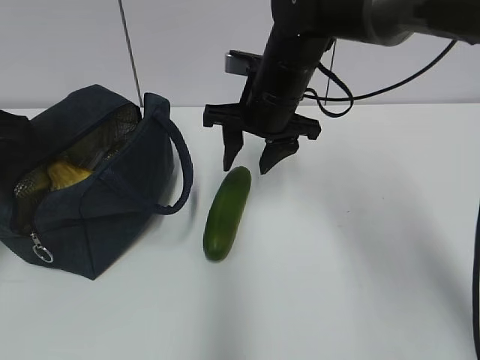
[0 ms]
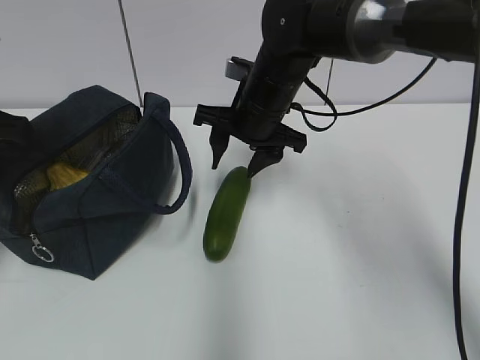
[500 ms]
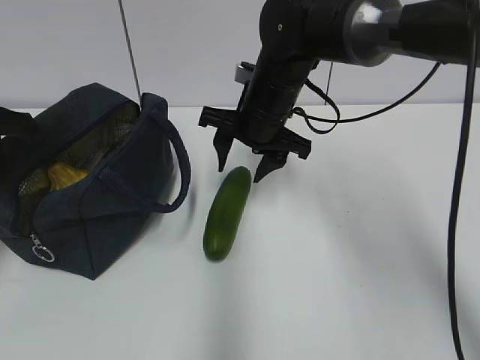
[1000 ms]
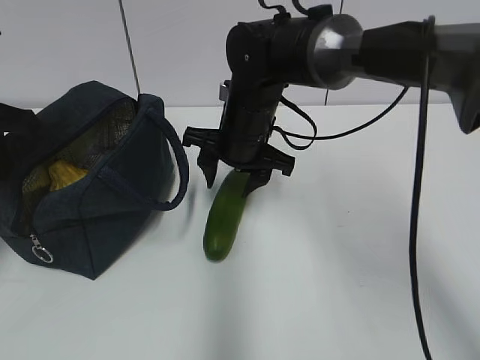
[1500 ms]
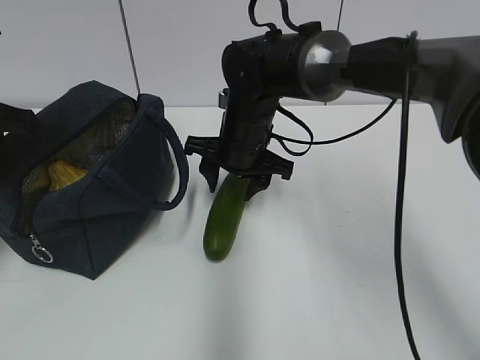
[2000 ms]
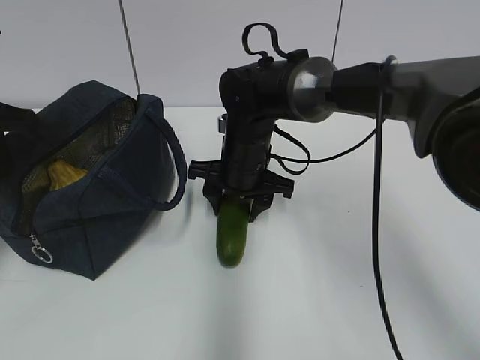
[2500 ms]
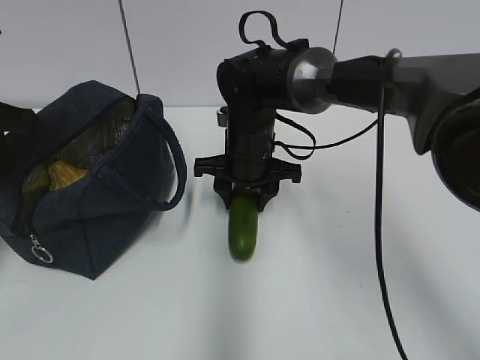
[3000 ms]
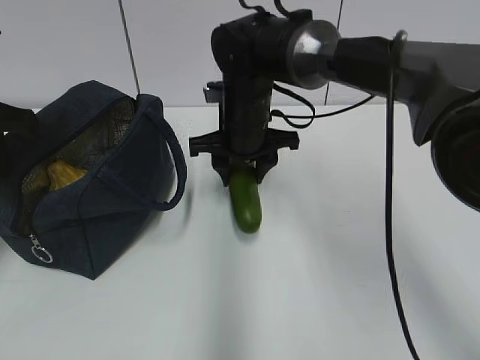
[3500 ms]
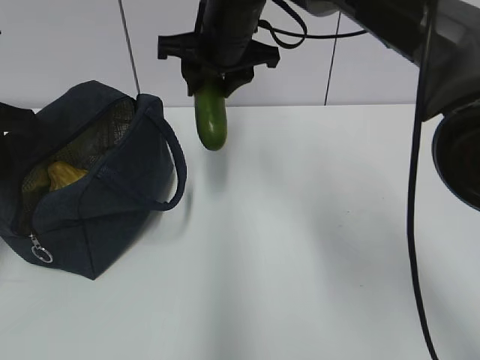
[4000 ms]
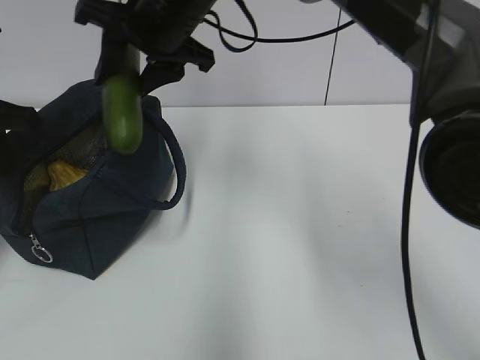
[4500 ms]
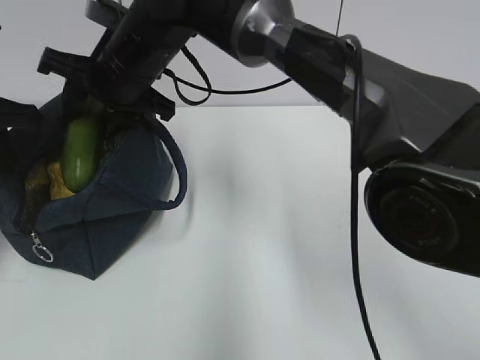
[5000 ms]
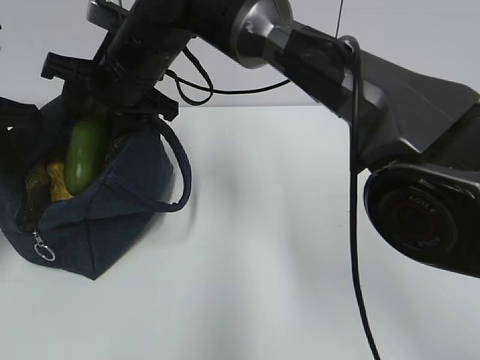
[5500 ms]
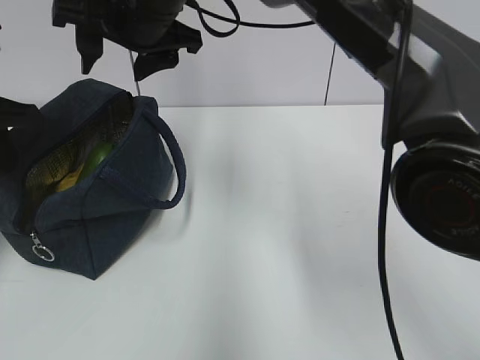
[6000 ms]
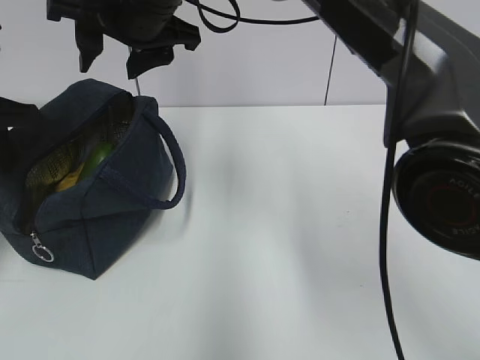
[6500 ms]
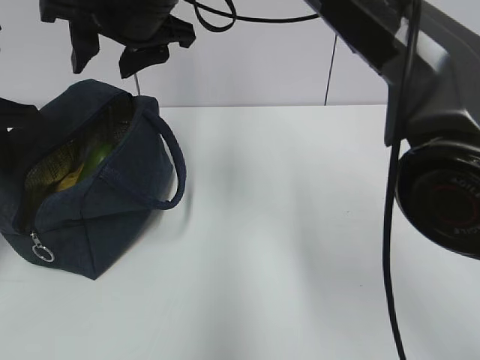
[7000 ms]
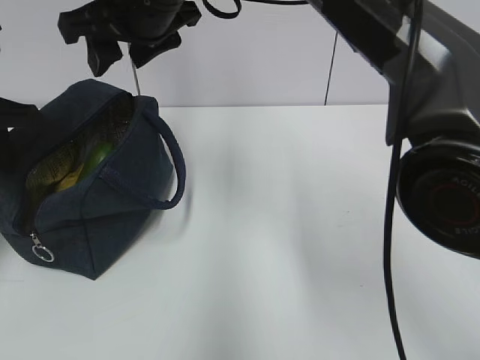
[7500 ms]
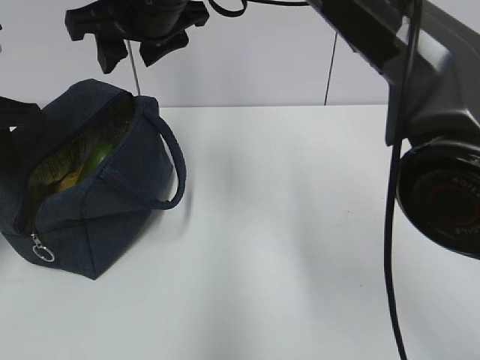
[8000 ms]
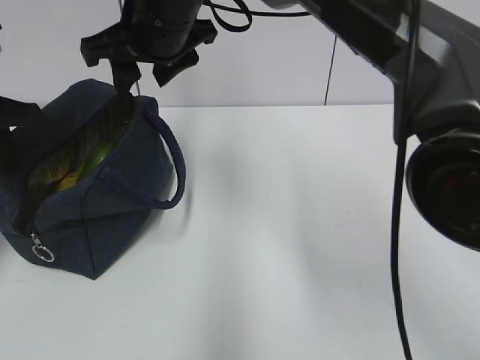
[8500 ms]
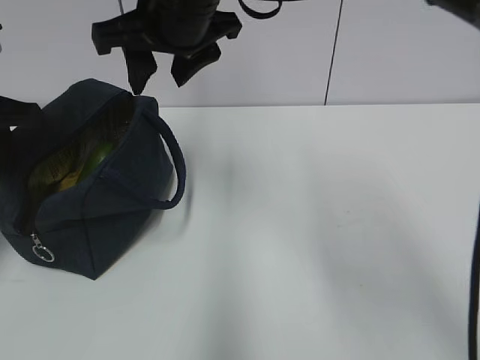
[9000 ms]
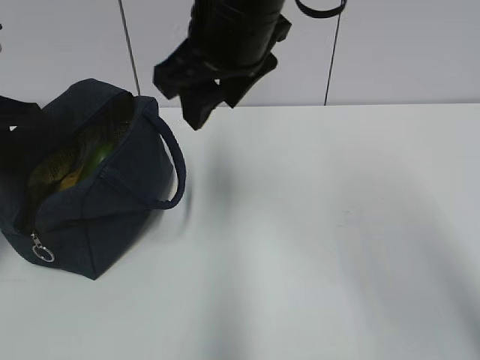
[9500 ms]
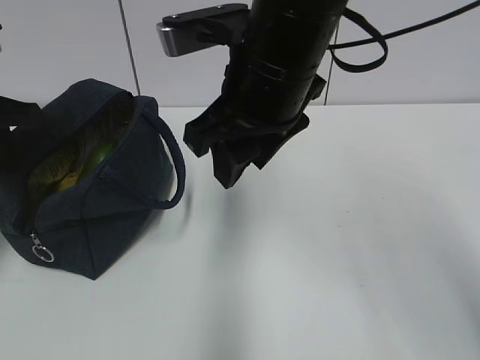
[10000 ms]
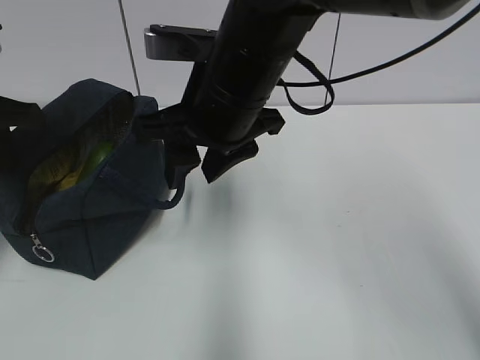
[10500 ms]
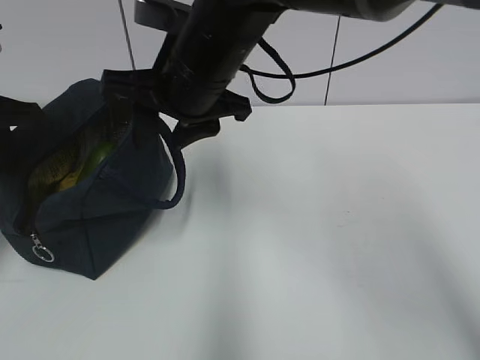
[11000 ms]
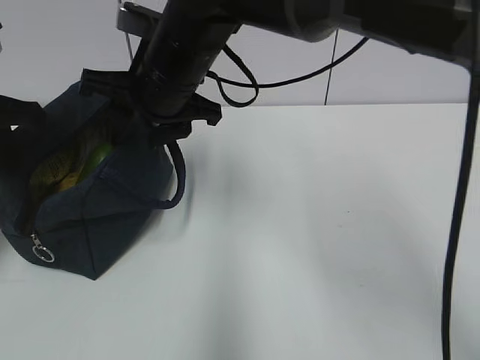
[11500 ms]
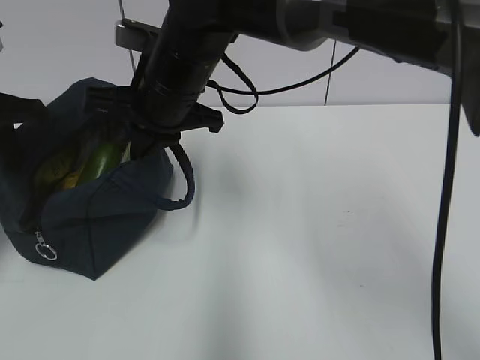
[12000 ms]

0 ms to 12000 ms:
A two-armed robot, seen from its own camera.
Step, 0 ms to 2500 ms: Grab the cucumber with your right hand.
0 ms to 2000 ms: The right gripper heads downward, covering approximately 5 cm.
2000 ms to 4000 ms: The right gripper is displaced upward by approximately 10 cm.
4000 ms to 6000 ms: The right gripper travels to the left by some 5 cm.
8000 ms to 10000 ms: The right gripper is displaced backward and to the right by approximately 15 cm.
10000 ms to 12000 ms: The right gripper is displaced forward, to the left and downward by some 15 cm, and closes.

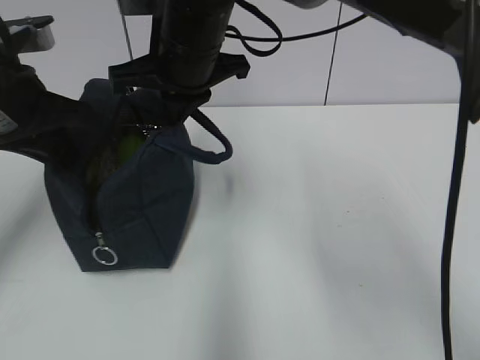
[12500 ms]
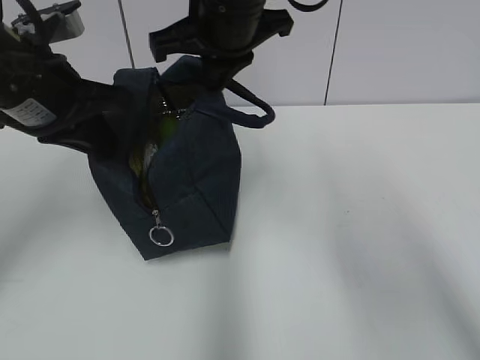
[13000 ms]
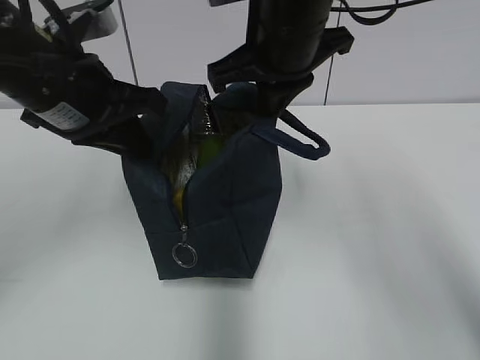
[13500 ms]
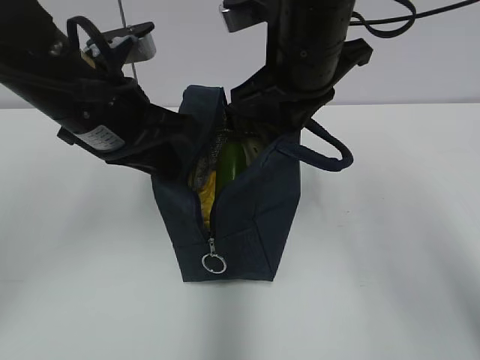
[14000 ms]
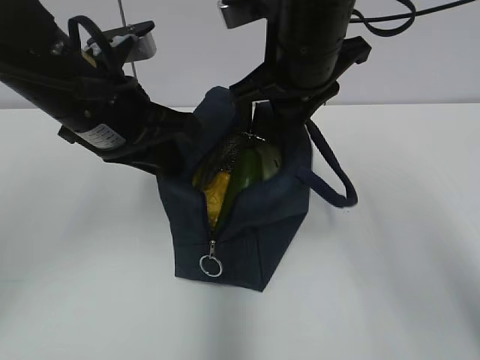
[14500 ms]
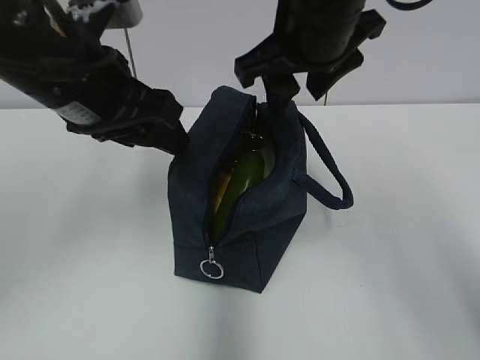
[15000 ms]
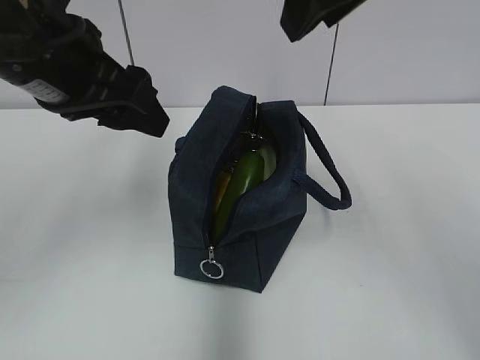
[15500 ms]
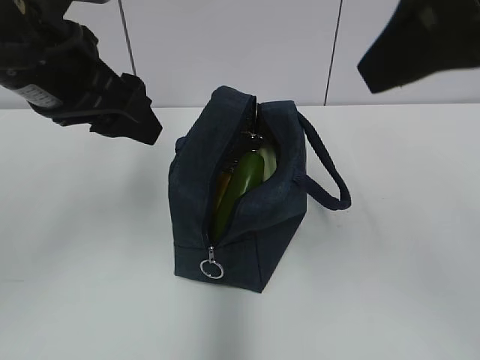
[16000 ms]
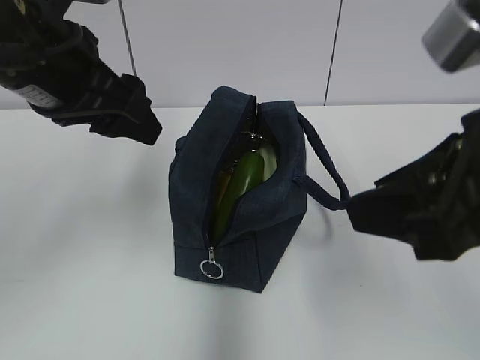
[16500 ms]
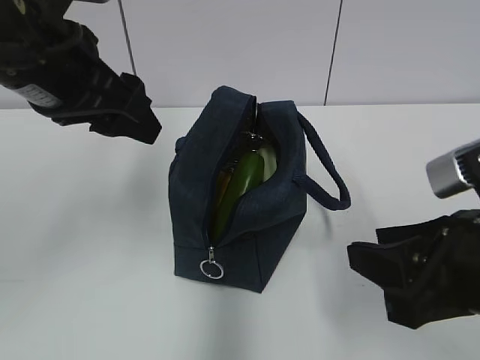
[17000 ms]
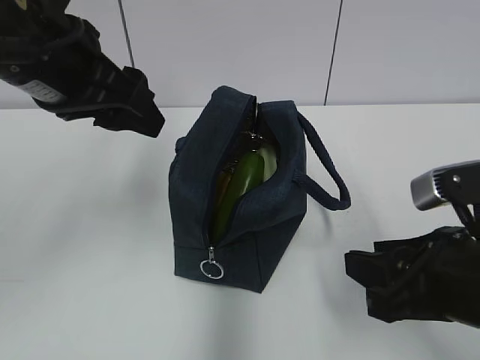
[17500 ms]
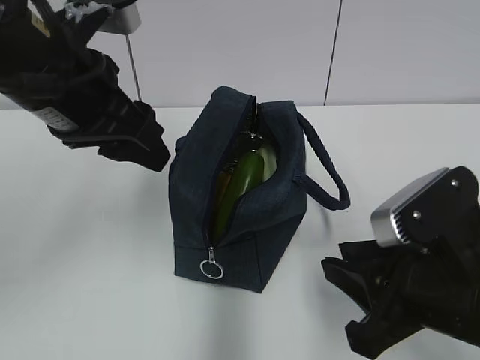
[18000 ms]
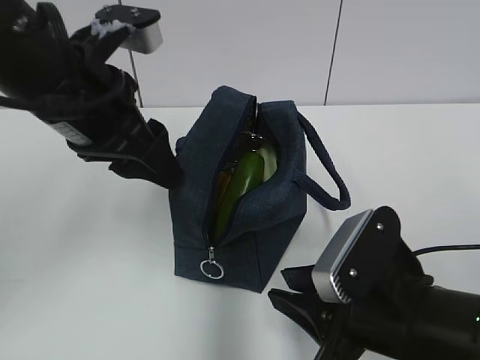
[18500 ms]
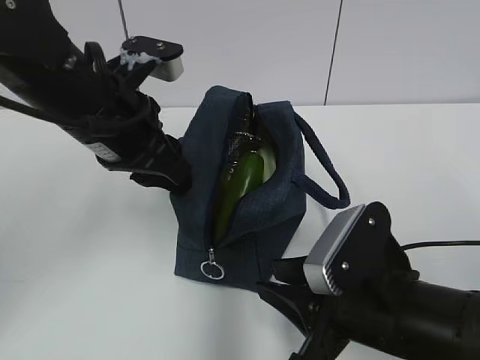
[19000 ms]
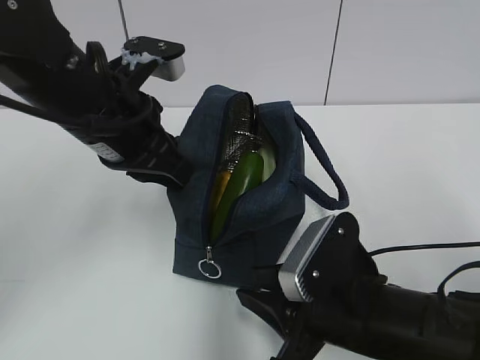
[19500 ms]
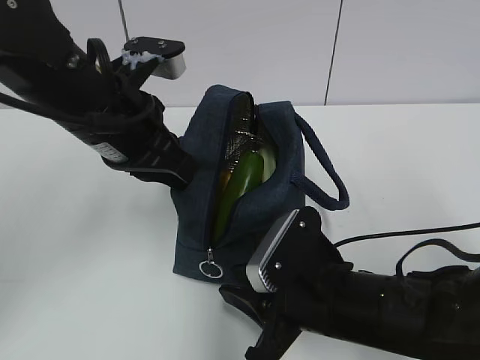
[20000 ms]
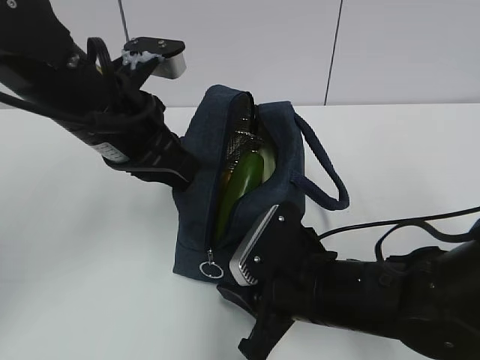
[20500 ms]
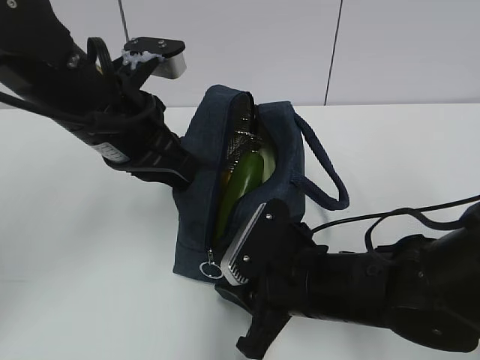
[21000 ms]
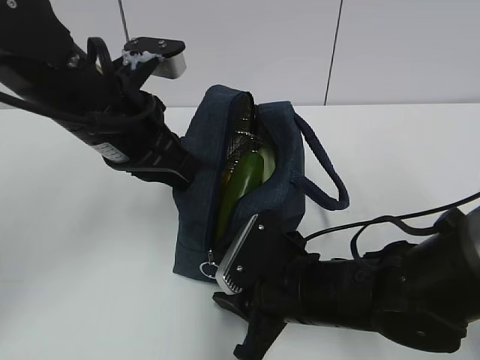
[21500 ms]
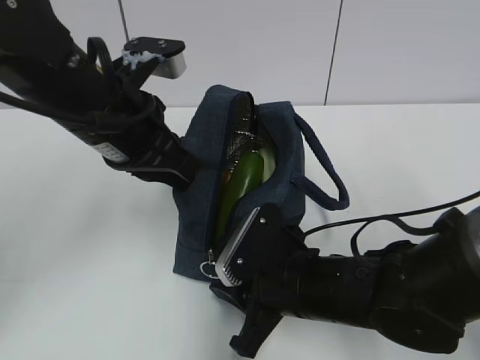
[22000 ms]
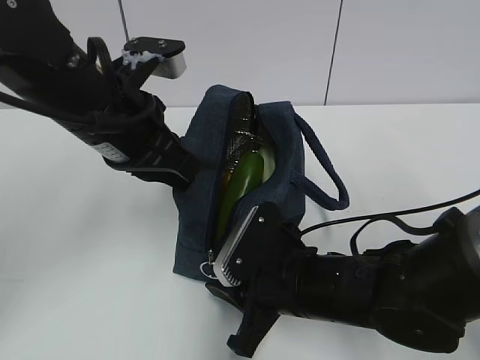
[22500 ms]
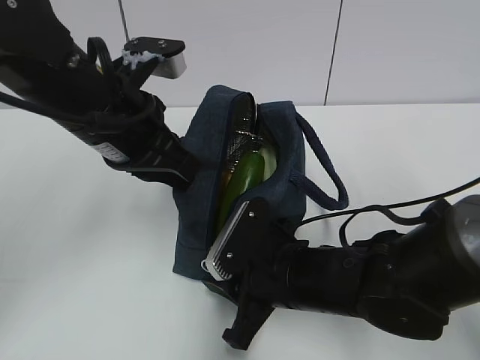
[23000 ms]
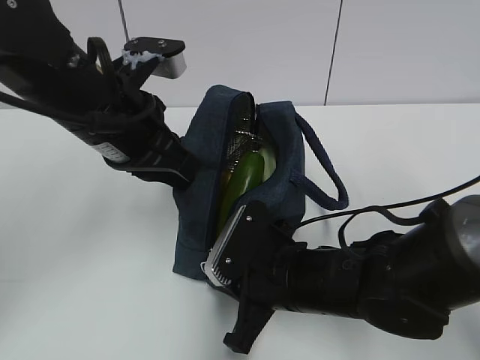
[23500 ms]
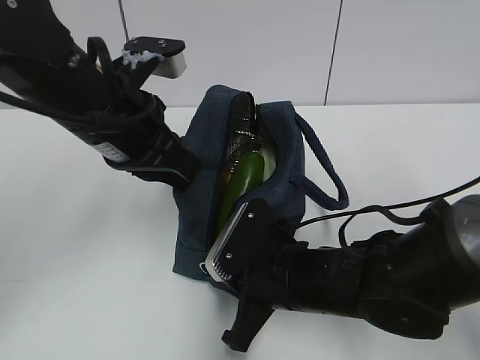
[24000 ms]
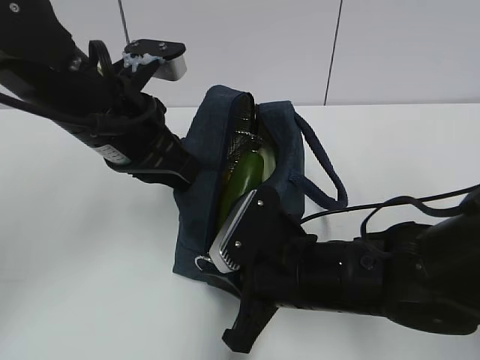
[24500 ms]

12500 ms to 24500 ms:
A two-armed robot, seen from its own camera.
Step, 12500 ms to 14500 ms: Move the lunch bag to the right.
12500 ms to 14500 ms: Both grippers move to the right, approximately 10 cm.
14500 ms to 16500 ms: The left gripper goes about 5 cm upward, and opens its fingers, while the right gripper is displaced backward and to the right by roughly 20 cm.
16500 ms to 18500 ms: The right gripper goes roughly 15 cm downward.
18500 ms to 20500 ms: The right gripper goes some 5 cm forward; the left gripper closes up.
20500 ms to 22500 ms: There are only small adjustments of the grippers.
22500 ms to 24500 ms: The right gripper closes its fingers.

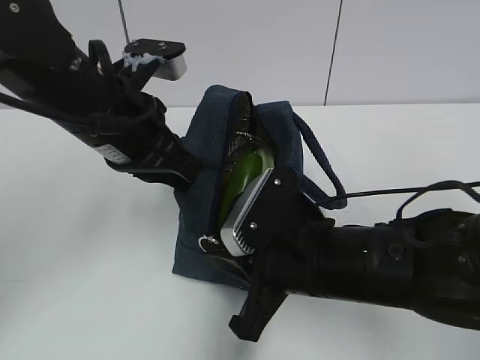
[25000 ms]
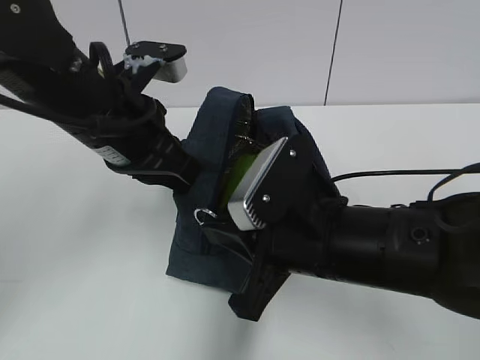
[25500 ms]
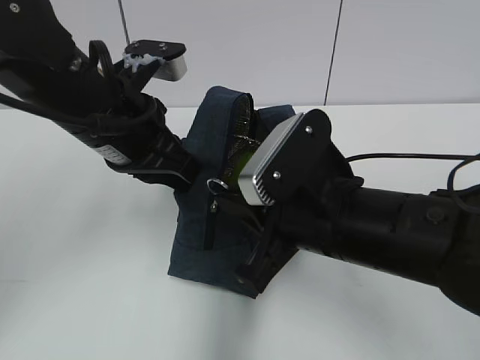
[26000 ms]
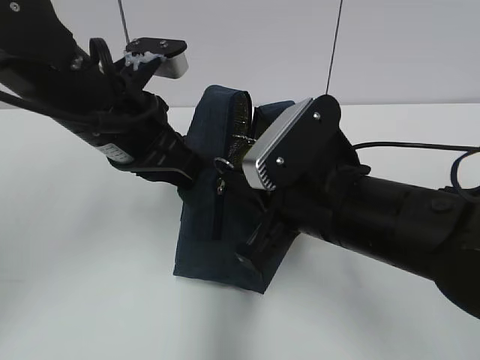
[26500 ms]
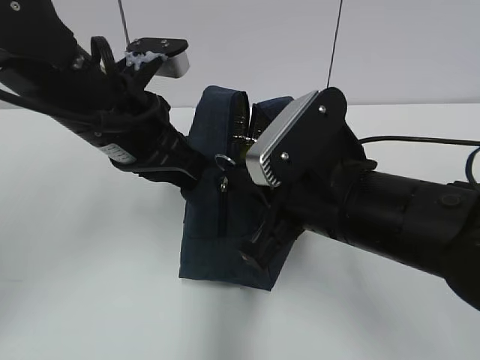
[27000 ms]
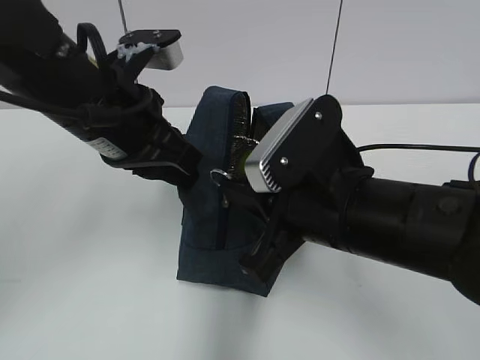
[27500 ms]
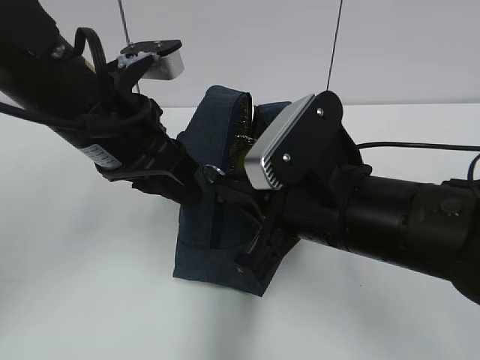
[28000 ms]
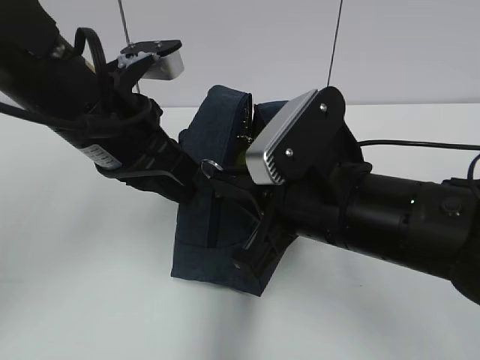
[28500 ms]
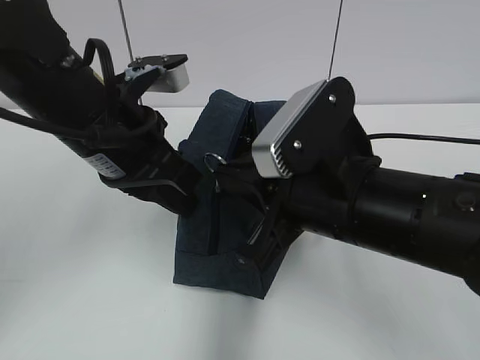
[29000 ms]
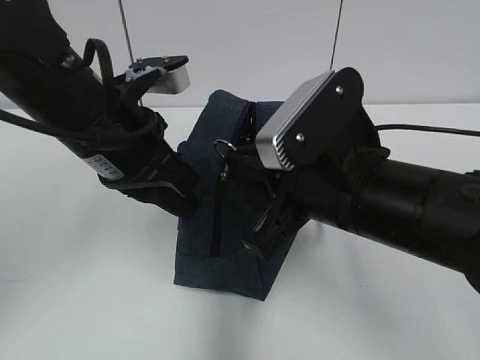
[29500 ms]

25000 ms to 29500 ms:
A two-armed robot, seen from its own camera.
25000 ms to 27000 ms: The right gripper shifts some 5 cm upward.
27000 ms to 29500 ms: The left gripper opens and closes again.
